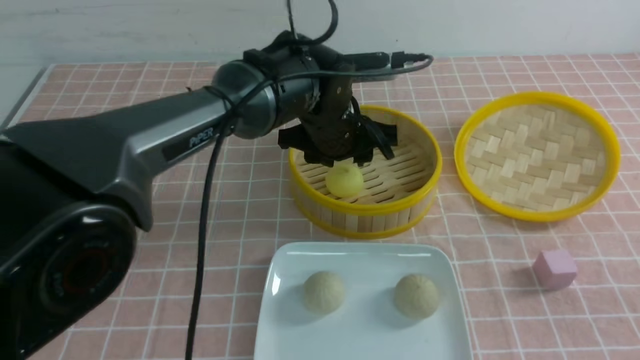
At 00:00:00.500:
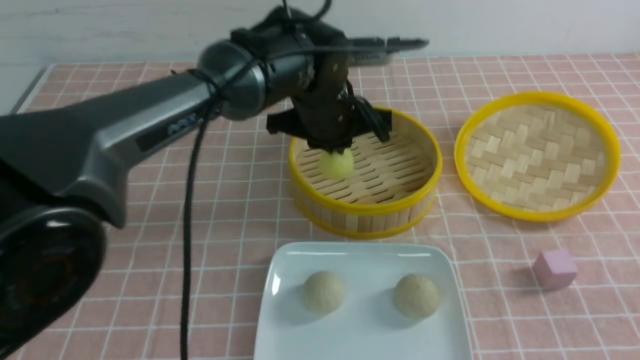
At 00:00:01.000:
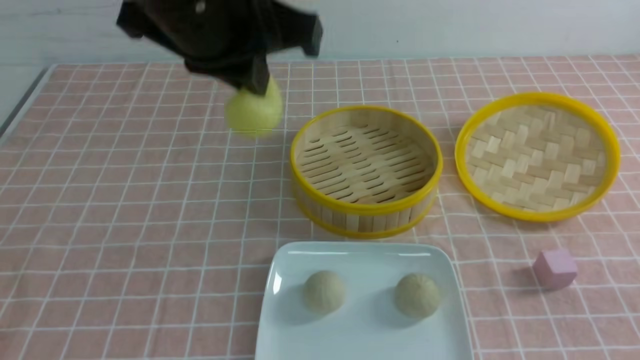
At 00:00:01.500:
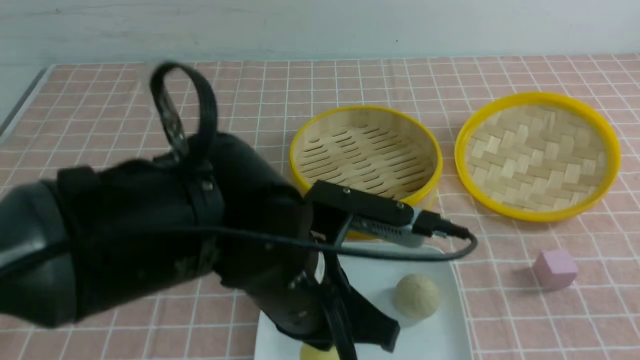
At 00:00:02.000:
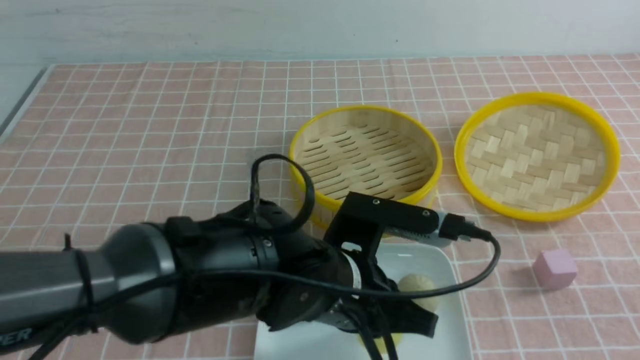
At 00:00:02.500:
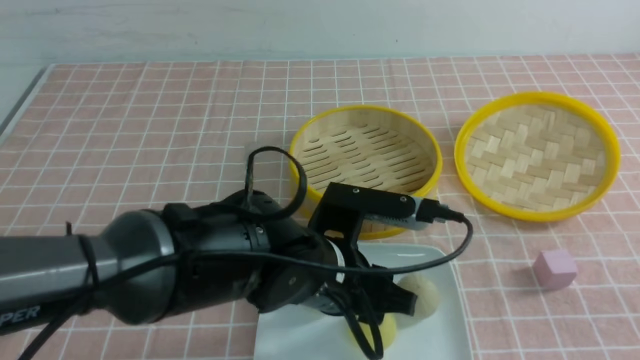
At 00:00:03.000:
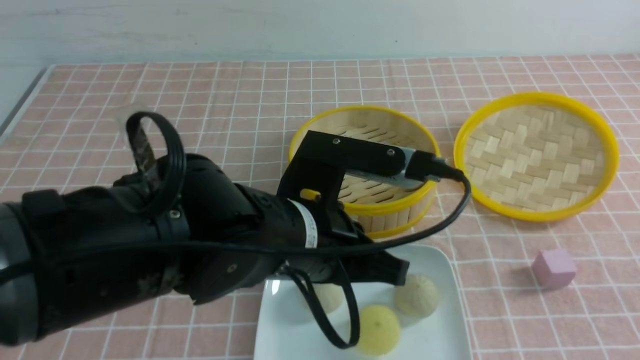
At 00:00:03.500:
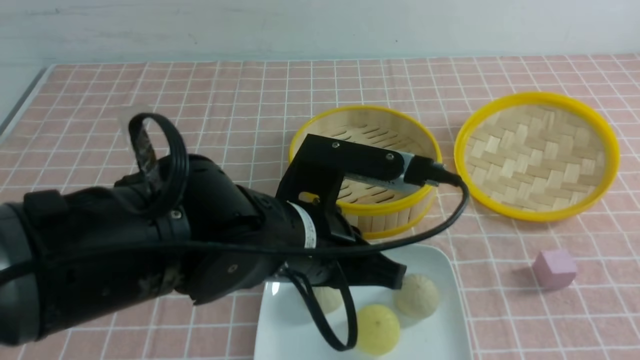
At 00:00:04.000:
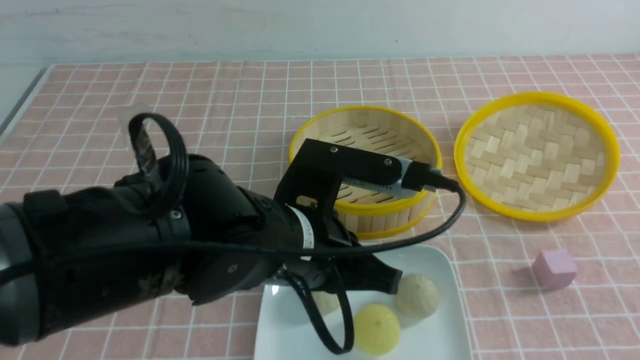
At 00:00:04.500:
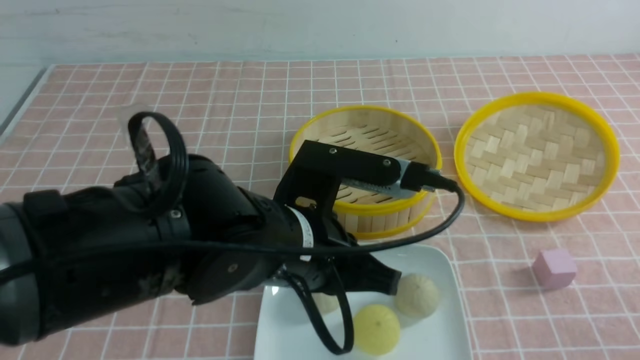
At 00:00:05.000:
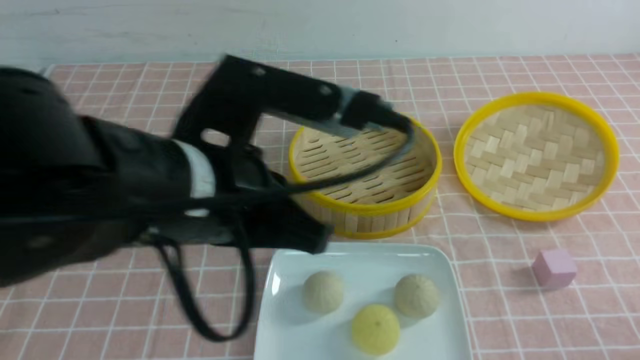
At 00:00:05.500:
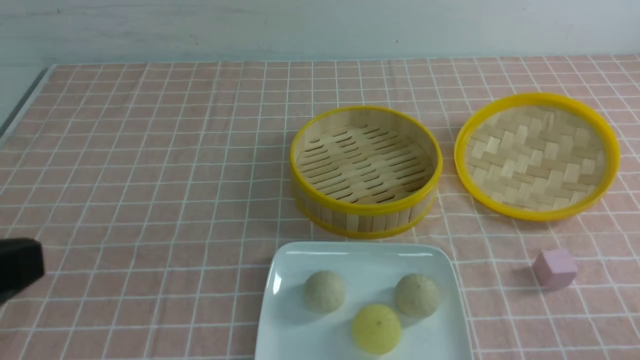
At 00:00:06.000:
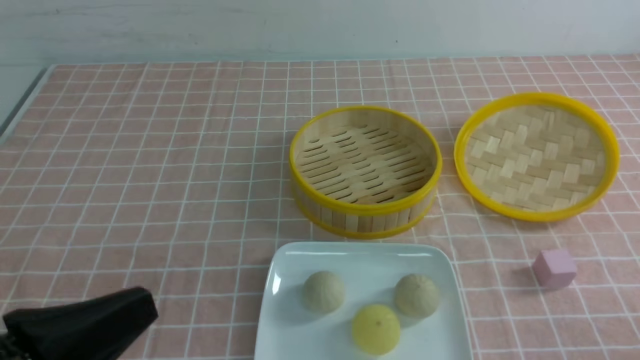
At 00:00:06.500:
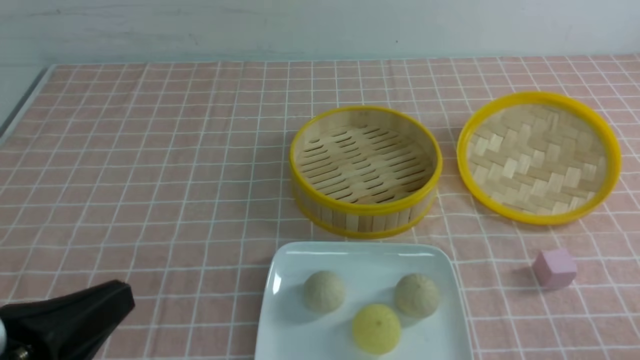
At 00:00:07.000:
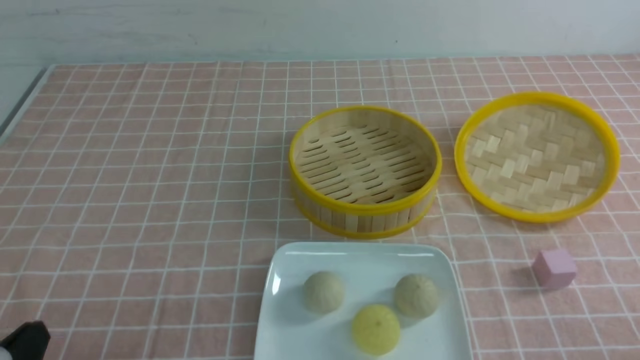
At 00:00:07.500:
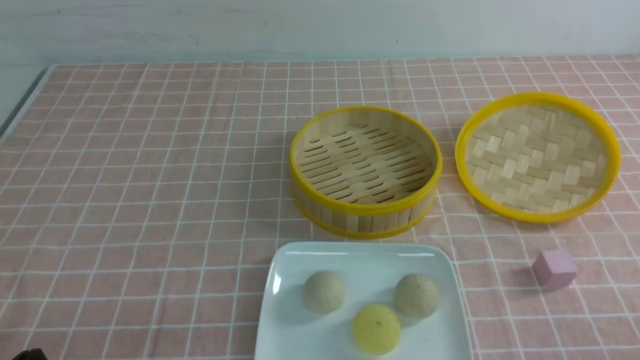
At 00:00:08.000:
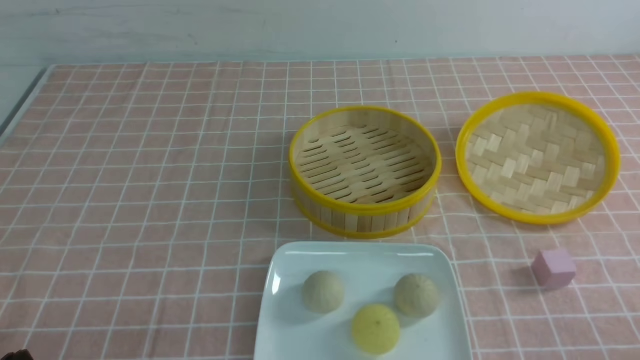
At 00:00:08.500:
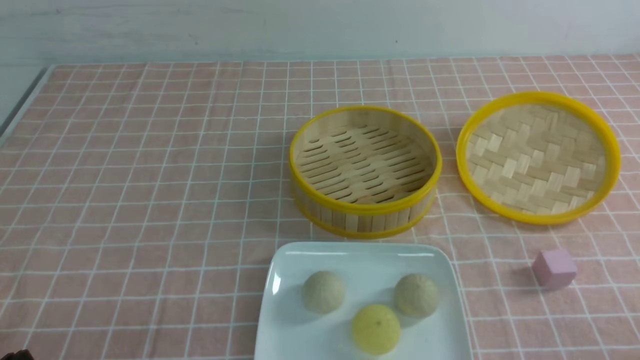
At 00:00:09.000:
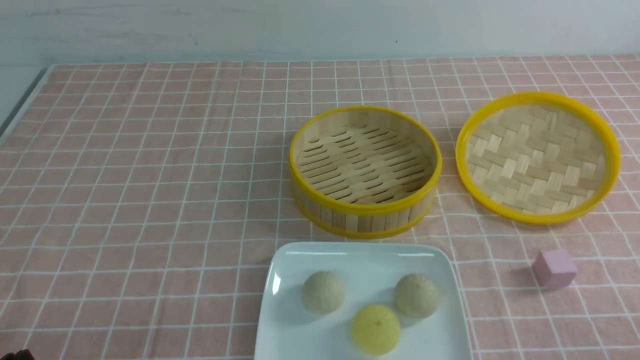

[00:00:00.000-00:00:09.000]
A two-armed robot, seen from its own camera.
Step, 00:00:00.500 to 00:00:02.500: use the left arm to put the steamed stuffed bun into the plate.
00:00:00.000 to 00:00:02.000: The left gripper shifts about 20 cm backward, and closes its fingers.
00:00:02.000 to 00:00:04.500: The right gripper is displaced downward by about 5 cm. Meanwhile the left gripper shifts approximately 5 cm upward, and opens, then closes again.
00:00:04.500 to 00:00:07.000: The left gripper shifts approximately 25 cm to the left and backward.

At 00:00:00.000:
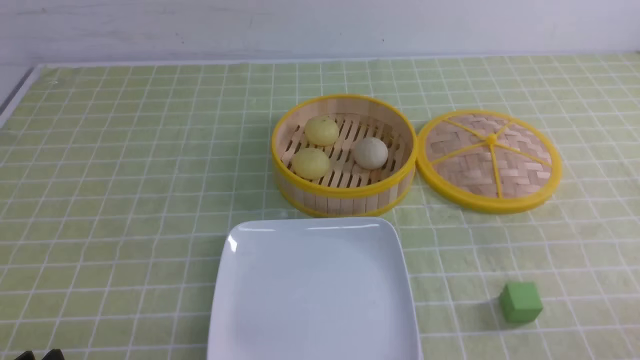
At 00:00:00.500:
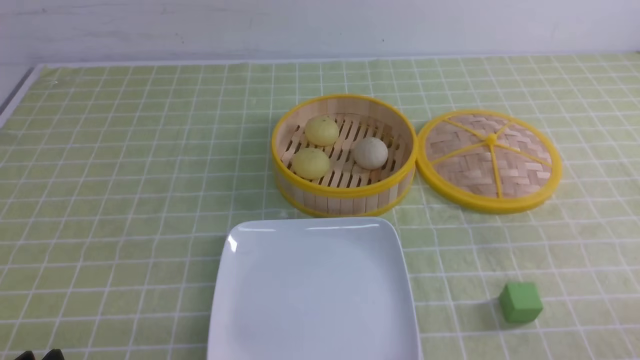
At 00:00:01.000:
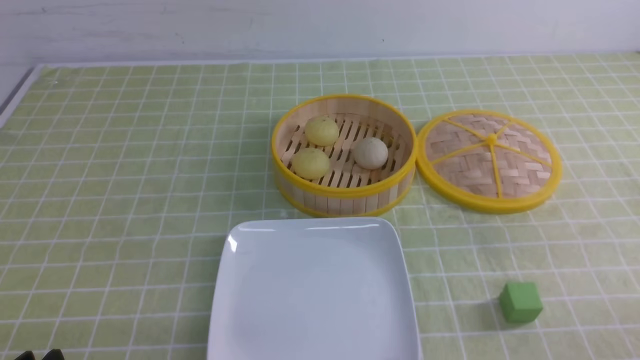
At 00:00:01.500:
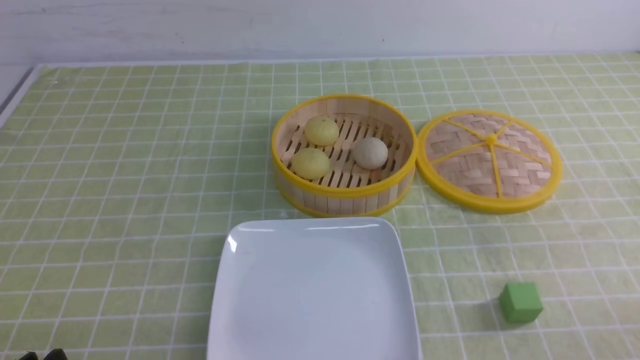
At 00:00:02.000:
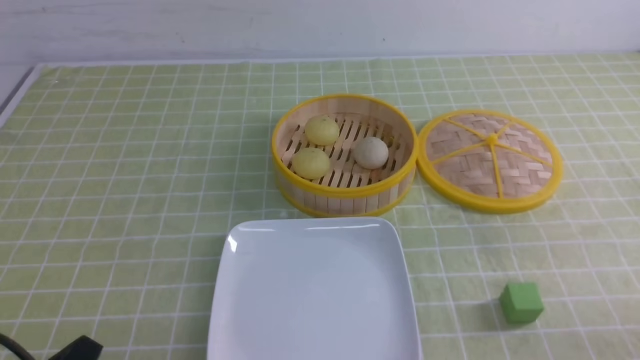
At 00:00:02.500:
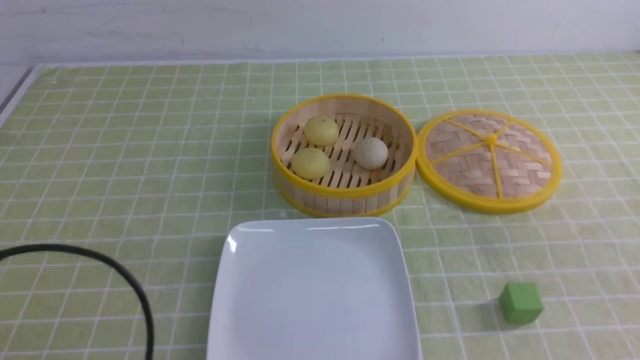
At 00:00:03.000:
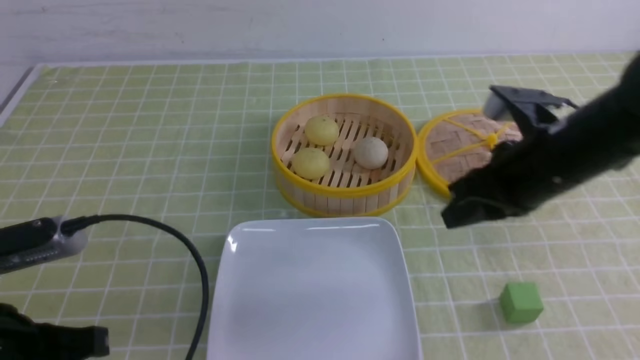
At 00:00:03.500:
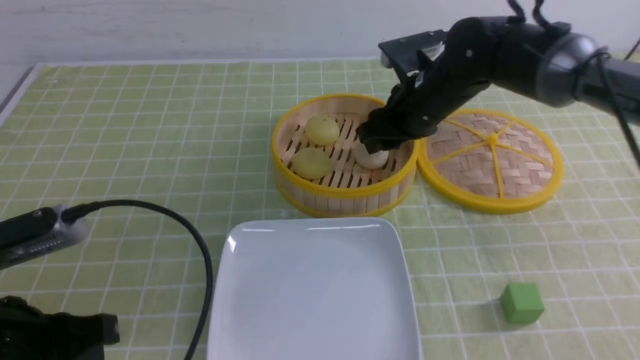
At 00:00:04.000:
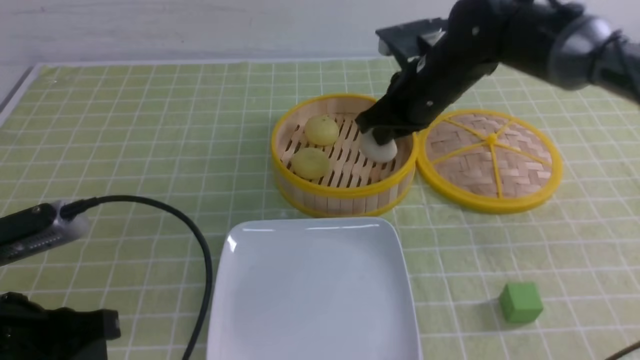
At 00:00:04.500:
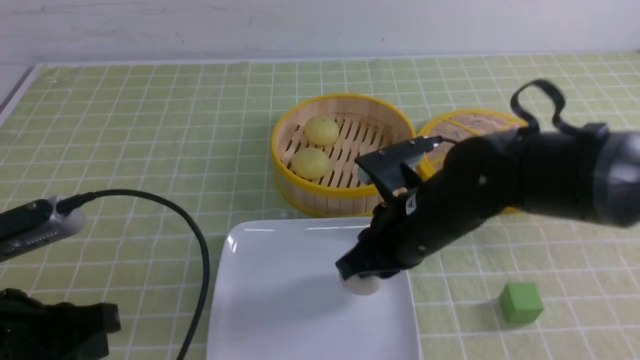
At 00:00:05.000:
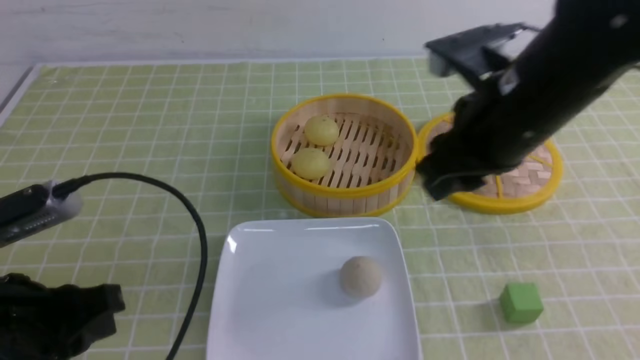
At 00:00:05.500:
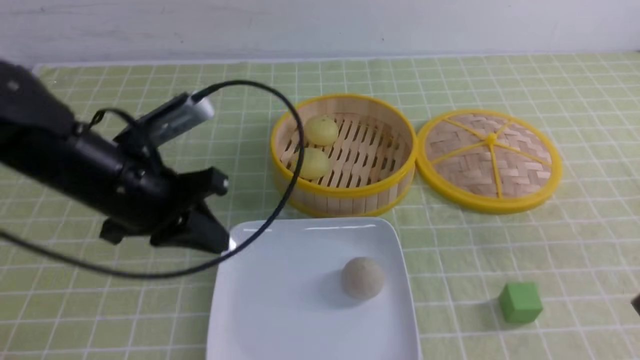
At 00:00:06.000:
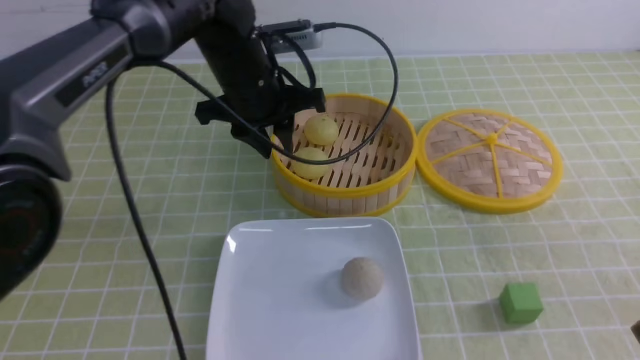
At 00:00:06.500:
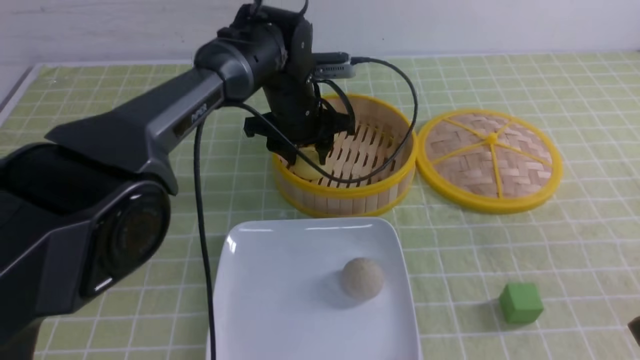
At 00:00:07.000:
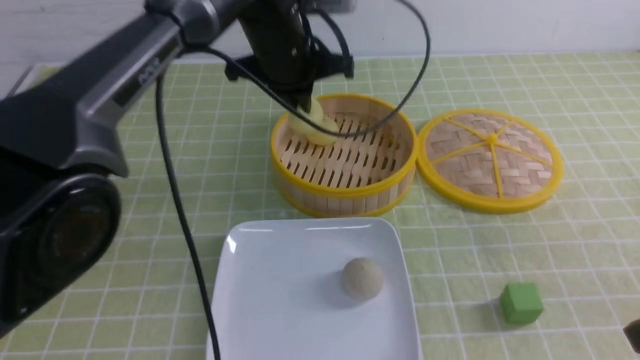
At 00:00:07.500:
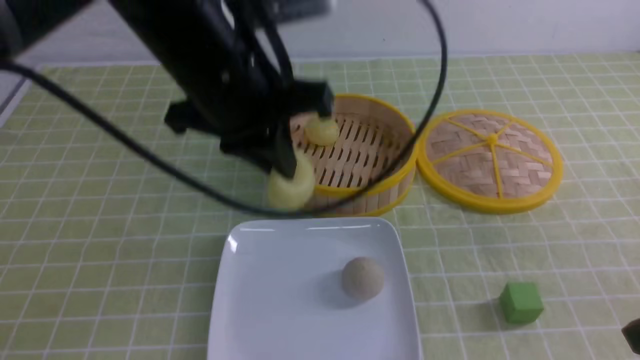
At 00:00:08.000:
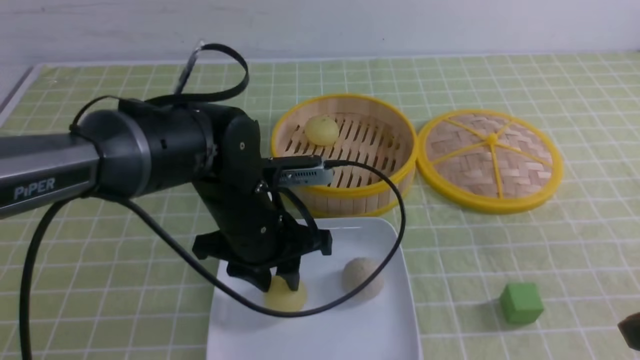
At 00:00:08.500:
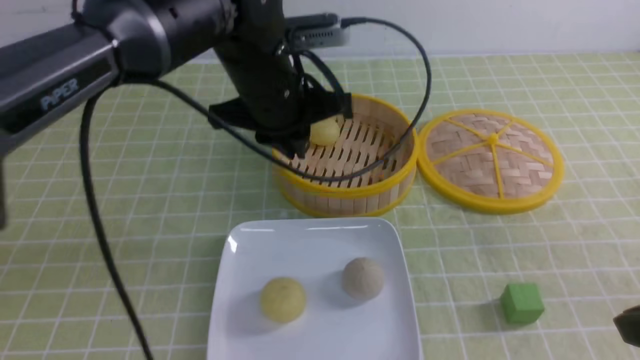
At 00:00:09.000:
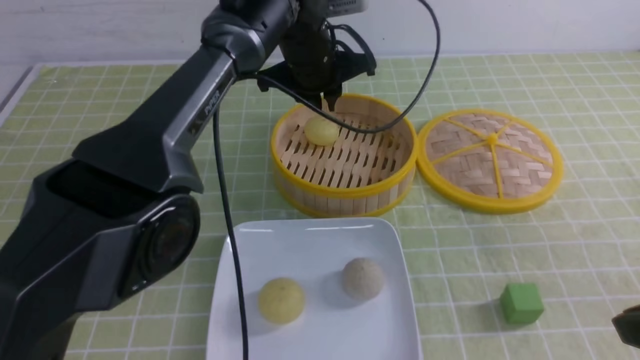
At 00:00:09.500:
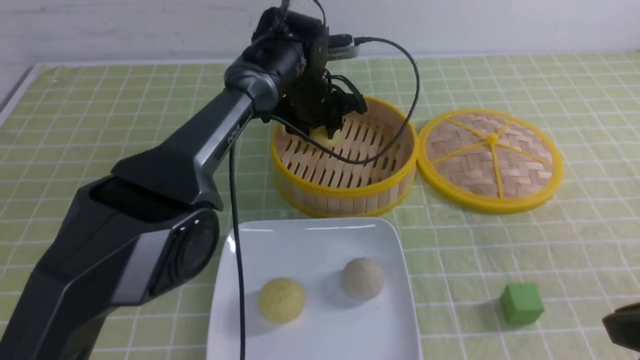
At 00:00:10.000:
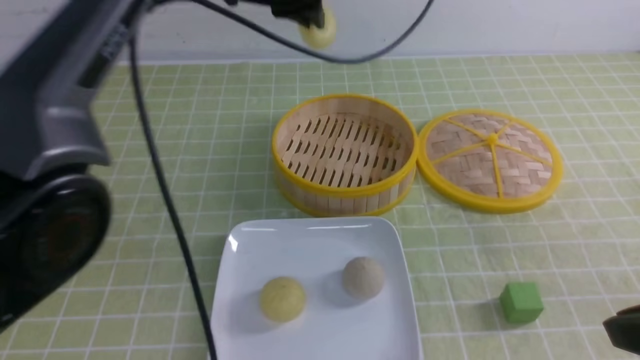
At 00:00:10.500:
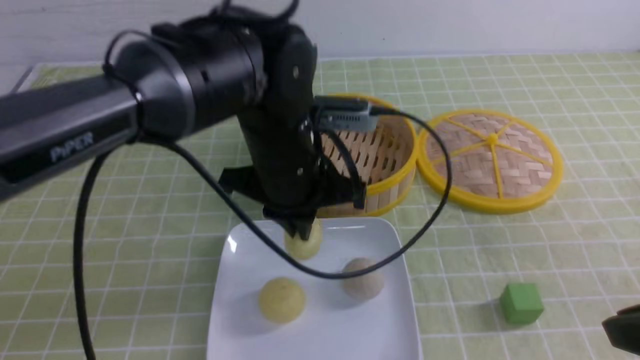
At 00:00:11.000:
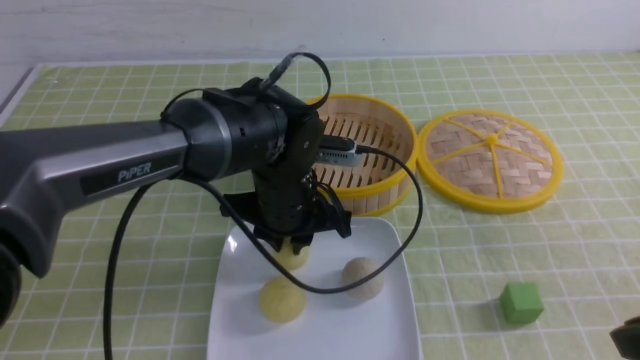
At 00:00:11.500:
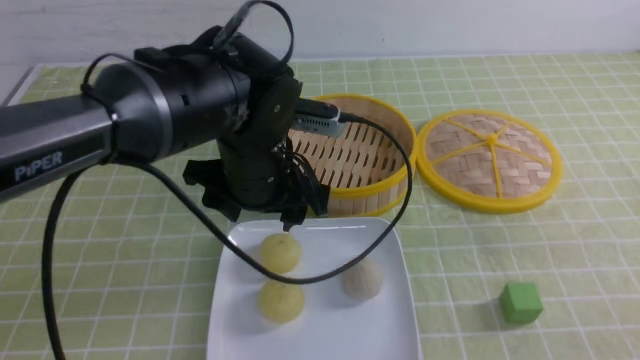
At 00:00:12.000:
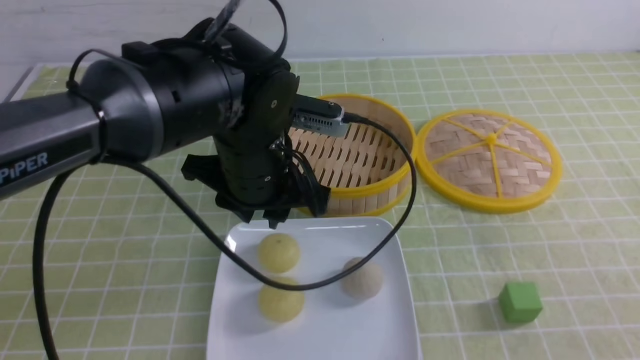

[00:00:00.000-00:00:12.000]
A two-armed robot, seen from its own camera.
Step, 00:00:00.000 to 00:00:03.500: use the right arm to grab the steamed stuffed bun that is closest to it.
Step, 00:00:04.000 to 00:00:04.500: use the right arm to put the steamed stuffed bun into the plate.
Step, 00:00:05.000 to 00:00:06.500: use the left arm to grab the steamed stuffed bun that is closest to it.
Step, 00:00:07.000 to 00:00:07.500: use the left arm to put the steamed stuffed bun into the plate.
Step, 00:00:08.500 to 00:00:09.500: use the left arm to grab the steamed stuffed bun that is closest to it.
Step, 00:00:10.000 to 00:00:11.000: use the left arm to put the steamed stuffed bun into the plate.
00:00:02.000 to 00:00:04.000: The left gripper heads forward and upward, covering some 10 cm. Meanwhile the right gripper heads forward and to the left, covering approximately 40 cm, and closes its fingers.
00:00:04.000 to 00:00:06.000: The left gripper shifts roughly 30 cm forward and to the right, while the right gripper is displaced backward and to the right by some 35 cm, and opens and closes again.
00:00:06.000 to 00:00:08.000: The left gripper is displaced backward and downward by about 15 cm, and closes, then reopens.
00:00:08.000 to 00:00:10.000: The left gripper goes some 20 cm upward and forward, and closes.
00:00:10.000 to 00:00:12.000: The left gripper shifts about 15 cm downward and backward, and opens up, while the right gripper shifts about 10 cm backward and to the right, and closes up.
